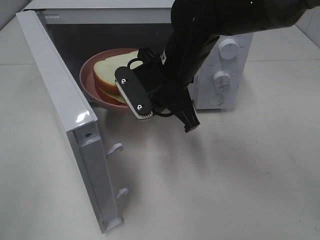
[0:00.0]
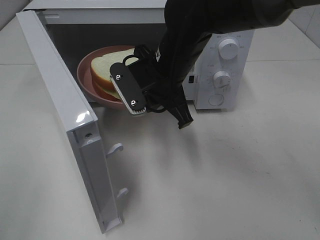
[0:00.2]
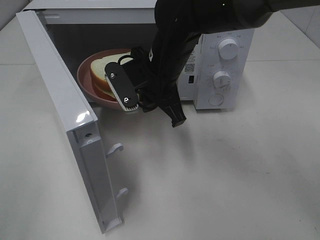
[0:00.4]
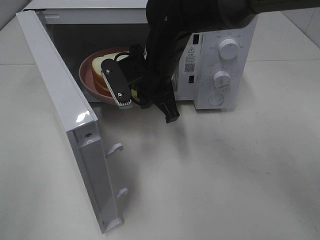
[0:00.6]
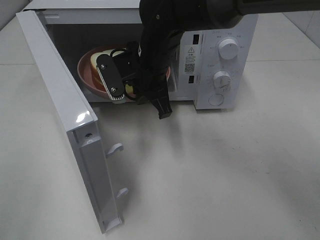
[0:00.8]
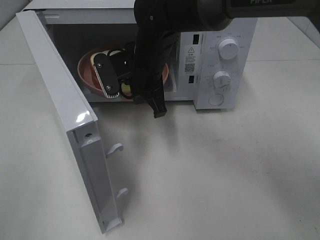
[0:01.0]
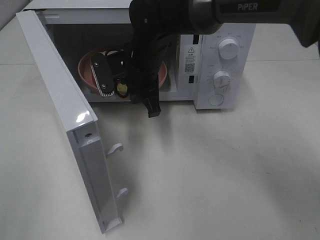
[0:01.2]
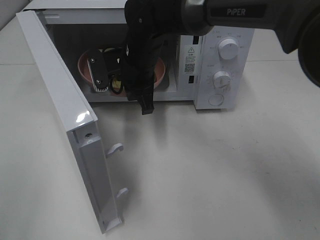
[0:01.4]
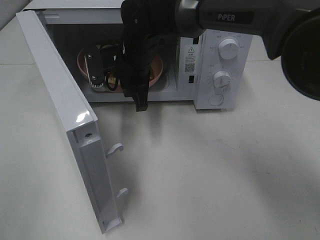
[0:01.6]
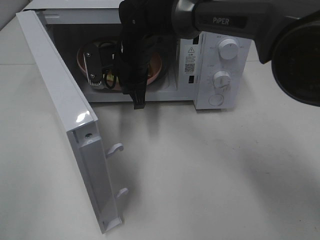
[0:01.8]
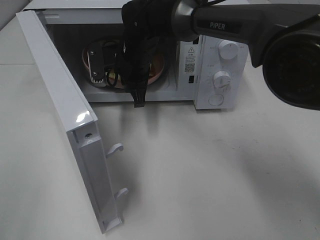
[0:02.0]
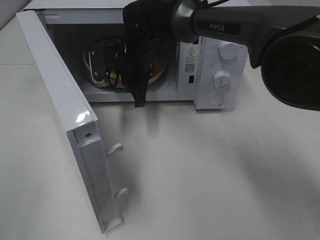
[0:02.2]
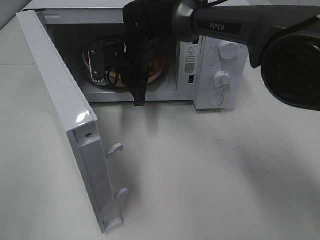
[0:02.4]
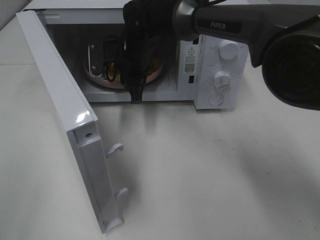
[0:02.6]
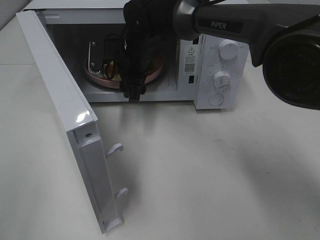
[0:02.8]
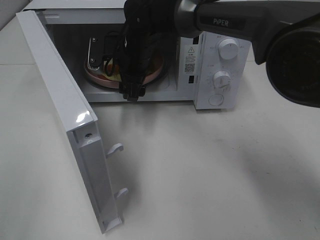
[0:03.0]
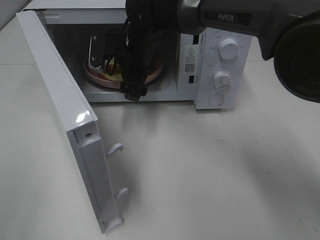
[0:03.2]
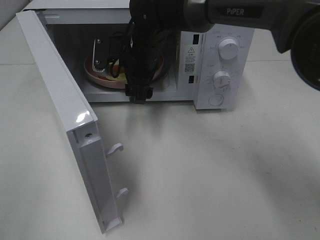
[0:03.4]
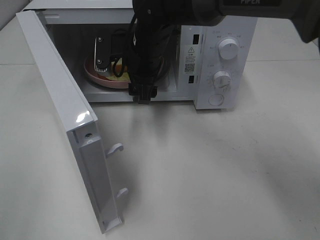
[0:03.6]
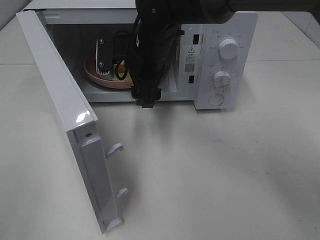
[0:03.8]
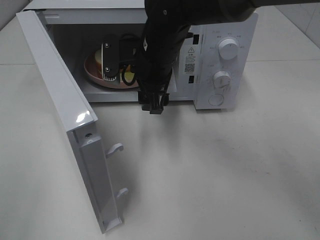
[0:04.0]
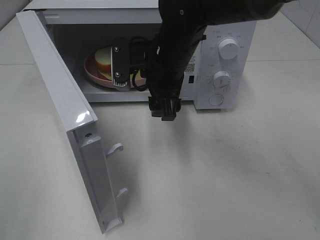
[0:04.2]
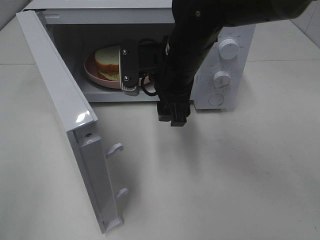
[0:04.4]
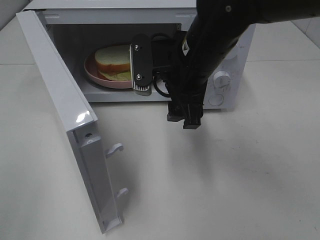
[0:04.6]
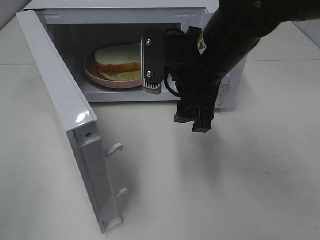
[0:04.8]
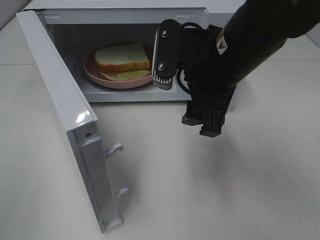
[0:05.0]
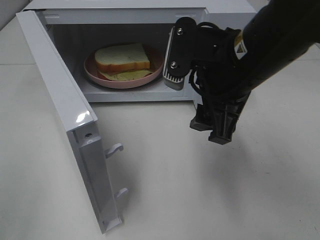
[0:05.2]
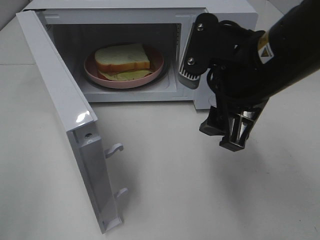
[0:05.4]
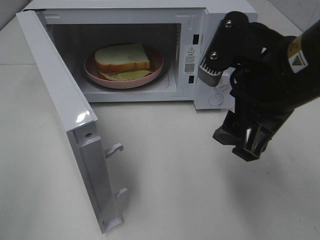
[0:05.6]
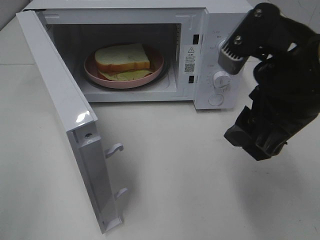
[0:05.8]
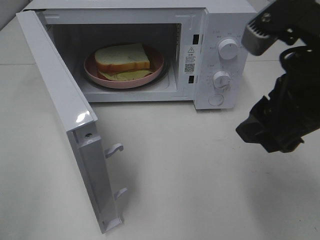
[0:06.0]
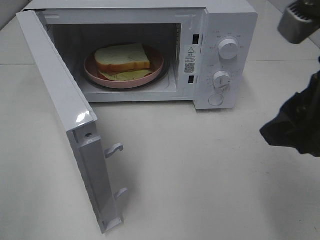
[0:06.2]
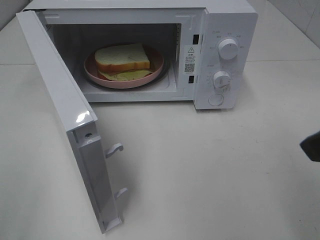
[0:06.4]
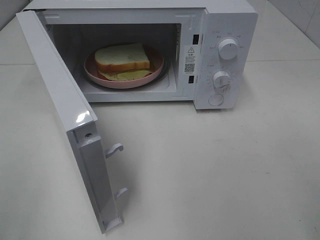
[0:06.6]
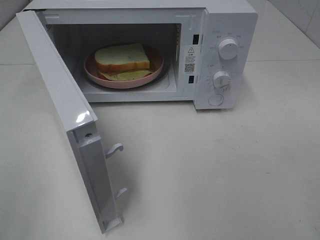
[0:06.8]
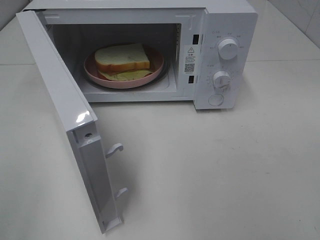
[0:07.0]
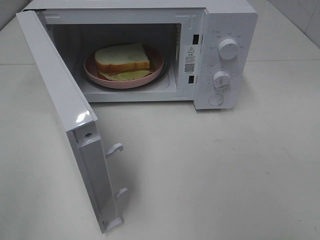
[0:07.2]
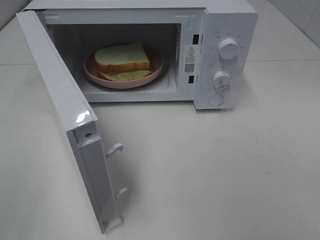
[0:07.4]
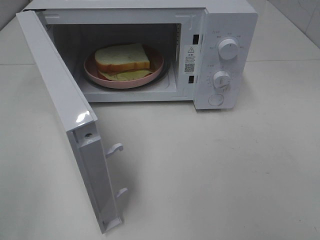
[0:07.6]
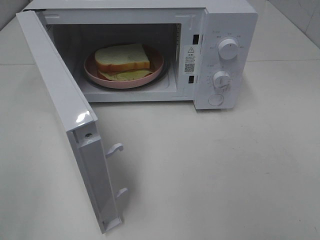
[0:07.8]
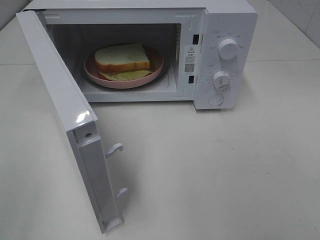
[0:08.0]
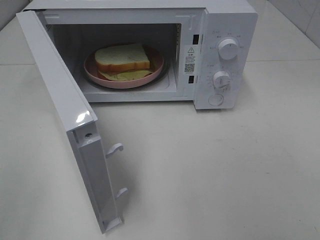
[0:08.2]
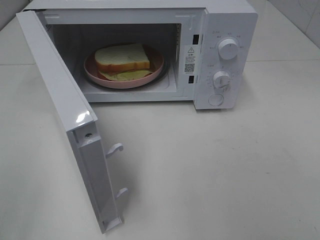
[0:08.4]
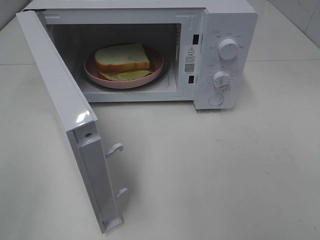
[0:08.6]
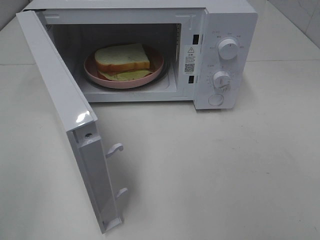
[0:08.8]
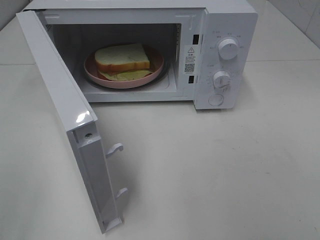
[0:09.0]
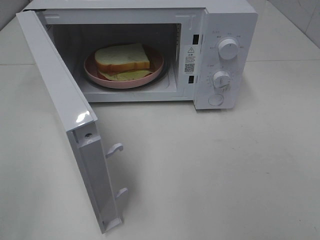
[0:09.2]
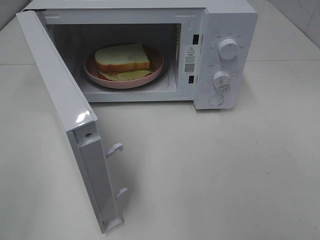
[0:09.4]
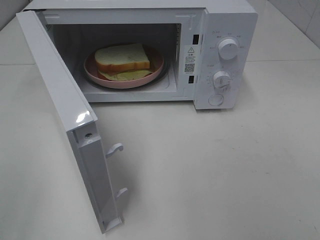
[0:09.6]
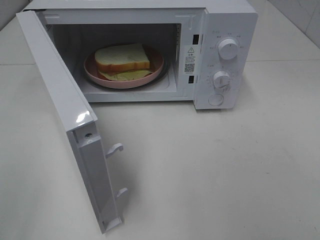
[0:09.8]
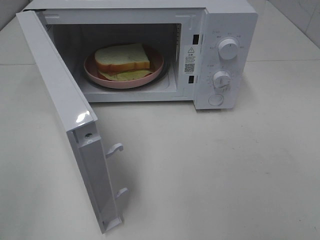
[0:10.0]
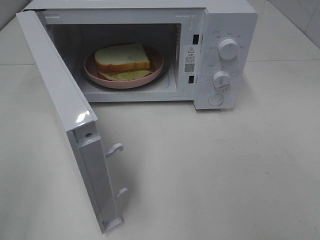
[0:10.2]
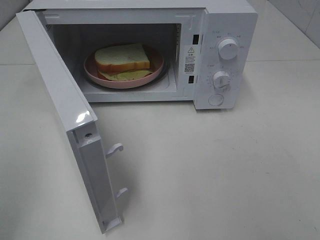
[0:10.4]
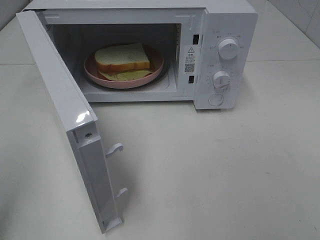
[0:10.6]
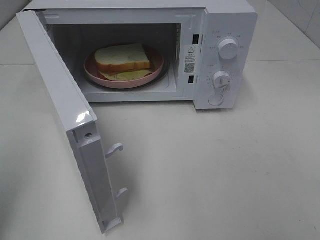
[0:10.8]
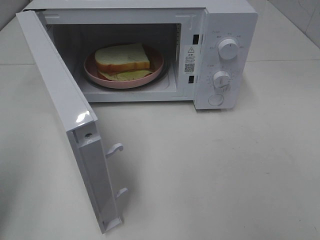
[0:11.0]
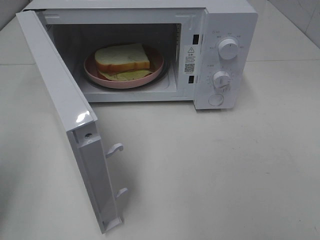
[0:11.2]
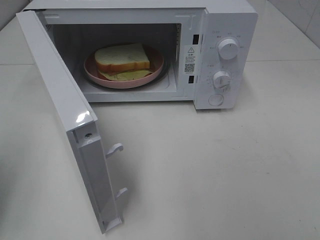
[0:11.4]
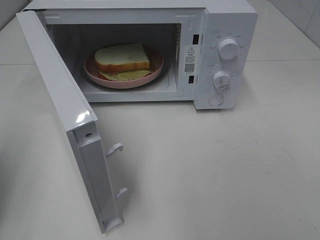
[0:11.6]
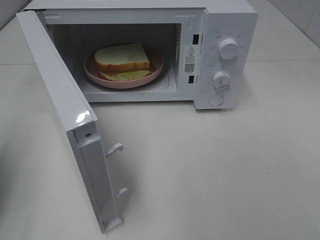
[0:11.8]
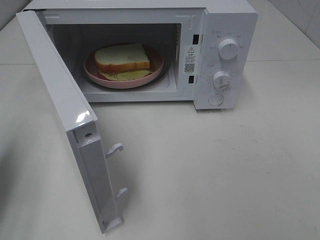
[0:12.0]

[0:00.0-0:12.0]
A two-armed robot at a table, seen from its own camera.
Task of the whole recording: Heat Sandwich.
Step, 0:00.0 to 0:03.8: Right hand: place the plate in the microwave.
0:00.0 to 0:01.6: The right gripper goes some 10 cm forward and to the left.
0:01.6 to 0:03.0: The right gripper opens.
0:03.0 to 0:04.4: The right gripper moves backward and to the right, roughly 15 cm.
0:04.4 to 0:06.0: The right gripper heads backward, to the right and upward, covering some 20 cm.
0:06.0 to 0:07.6: The right gripper shifts about 20 cm backward and to the right.
0:10.4 to 0:12.0: The left gripper moves forward and downward, some 15 cm, and closes its fingers.

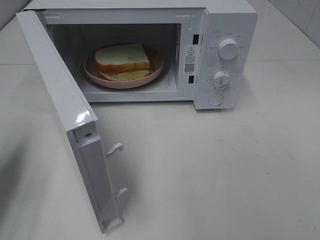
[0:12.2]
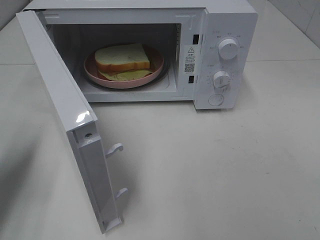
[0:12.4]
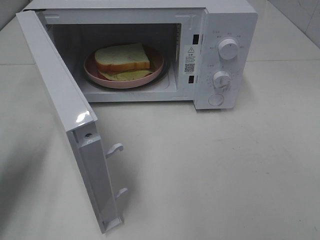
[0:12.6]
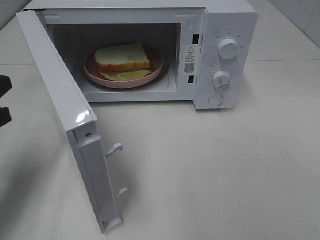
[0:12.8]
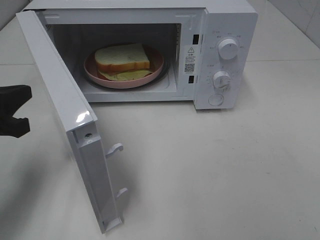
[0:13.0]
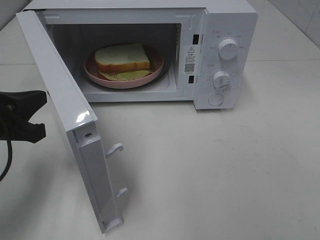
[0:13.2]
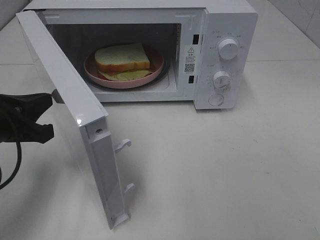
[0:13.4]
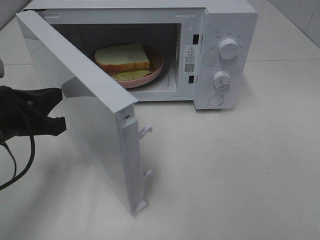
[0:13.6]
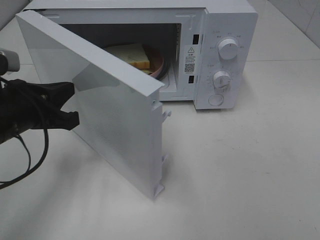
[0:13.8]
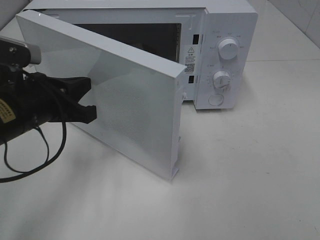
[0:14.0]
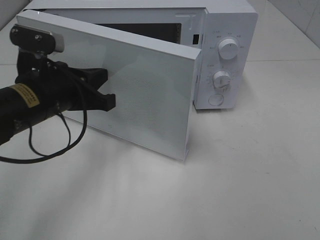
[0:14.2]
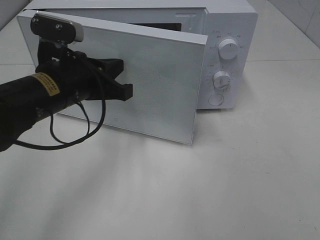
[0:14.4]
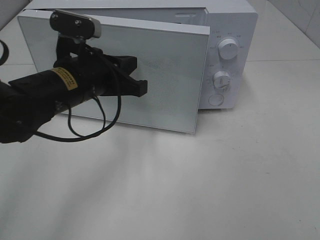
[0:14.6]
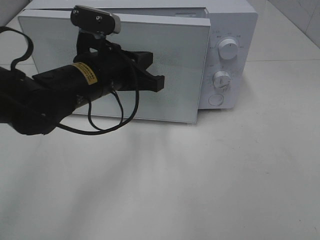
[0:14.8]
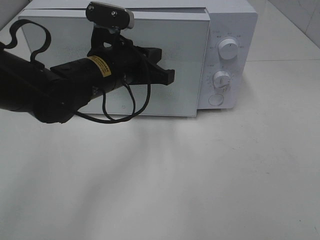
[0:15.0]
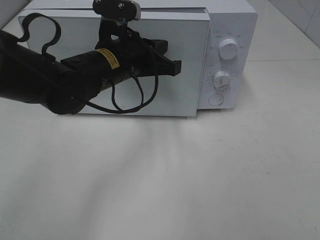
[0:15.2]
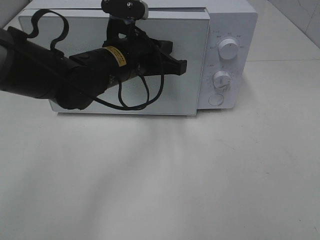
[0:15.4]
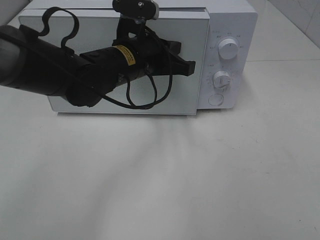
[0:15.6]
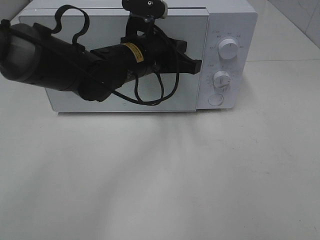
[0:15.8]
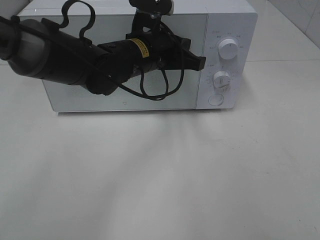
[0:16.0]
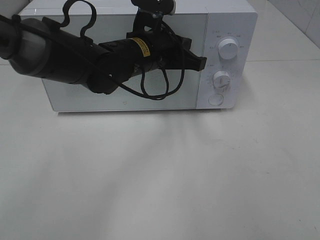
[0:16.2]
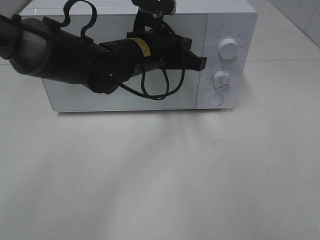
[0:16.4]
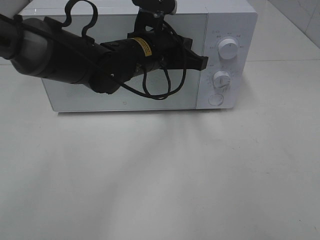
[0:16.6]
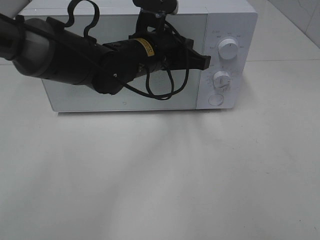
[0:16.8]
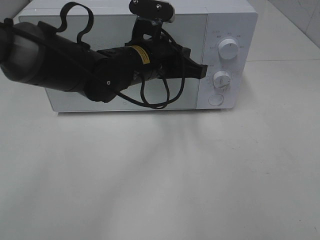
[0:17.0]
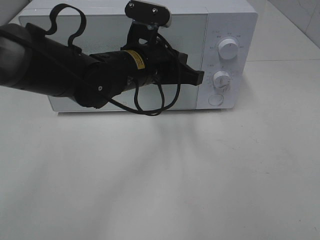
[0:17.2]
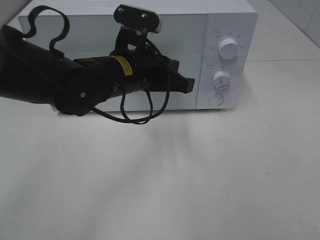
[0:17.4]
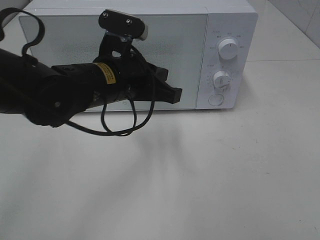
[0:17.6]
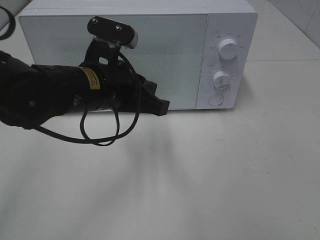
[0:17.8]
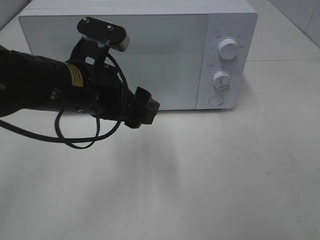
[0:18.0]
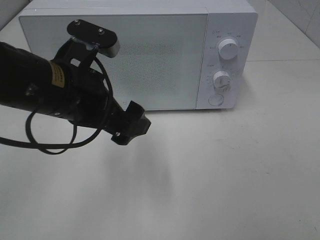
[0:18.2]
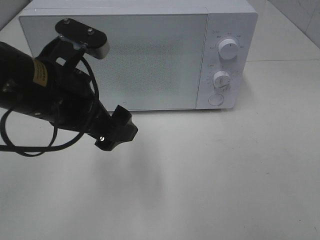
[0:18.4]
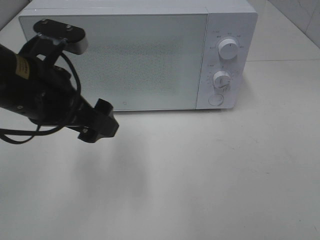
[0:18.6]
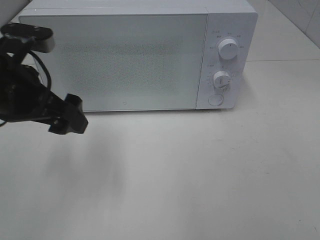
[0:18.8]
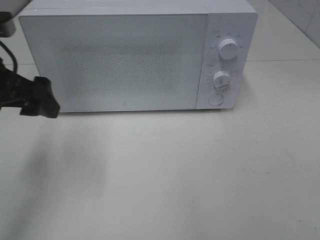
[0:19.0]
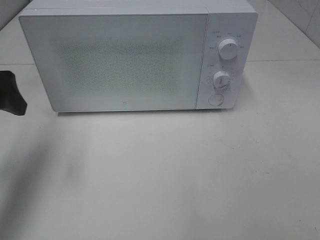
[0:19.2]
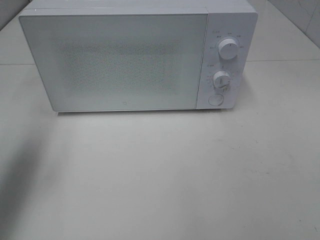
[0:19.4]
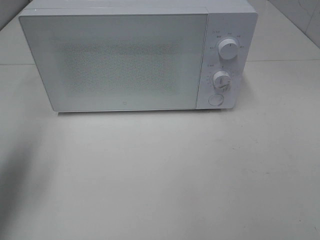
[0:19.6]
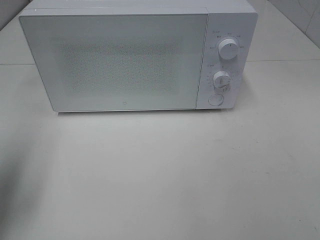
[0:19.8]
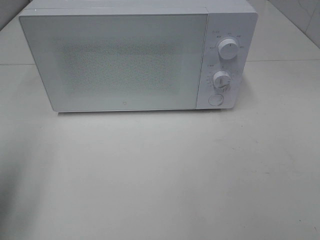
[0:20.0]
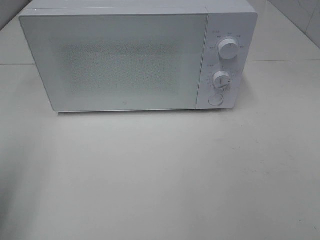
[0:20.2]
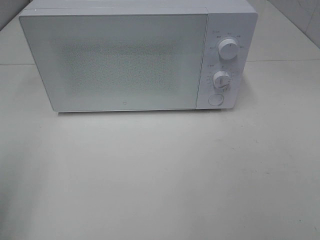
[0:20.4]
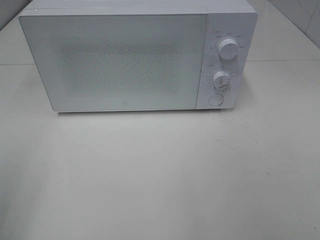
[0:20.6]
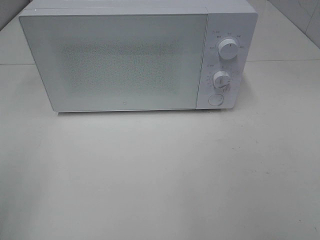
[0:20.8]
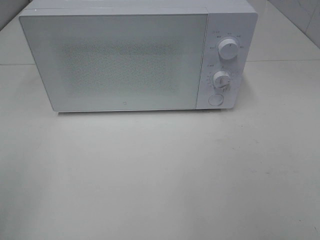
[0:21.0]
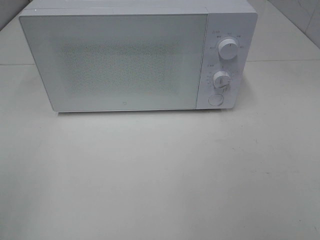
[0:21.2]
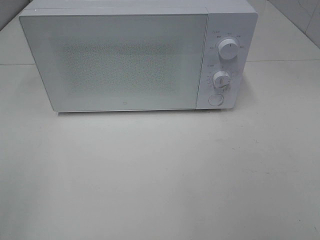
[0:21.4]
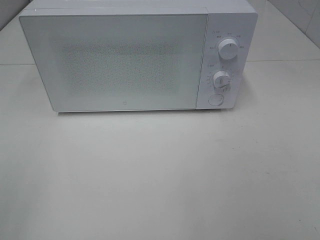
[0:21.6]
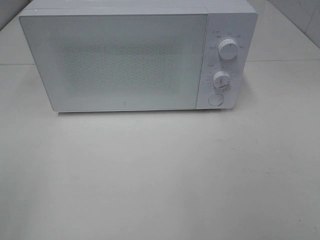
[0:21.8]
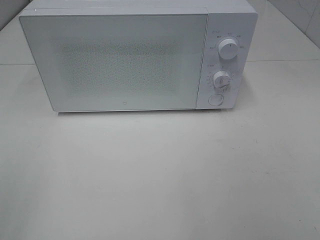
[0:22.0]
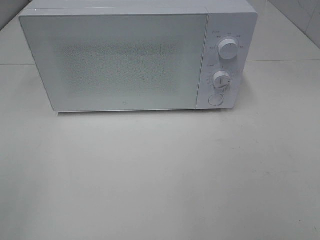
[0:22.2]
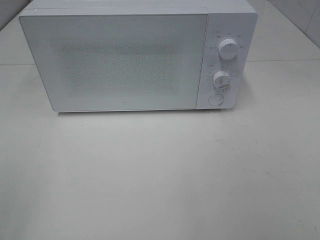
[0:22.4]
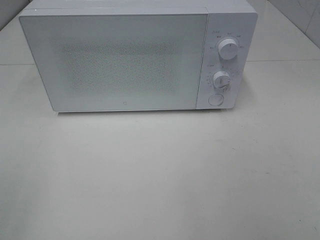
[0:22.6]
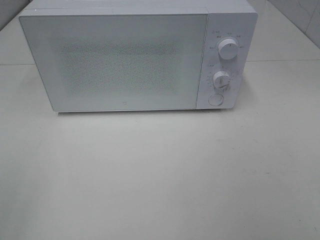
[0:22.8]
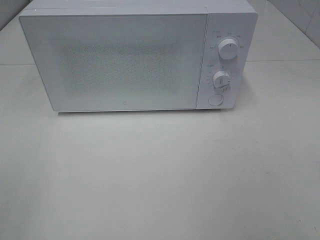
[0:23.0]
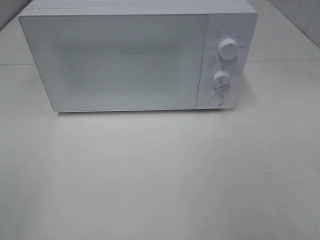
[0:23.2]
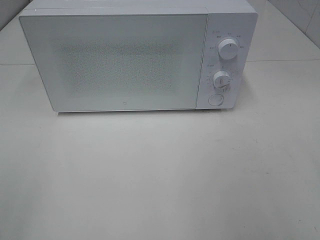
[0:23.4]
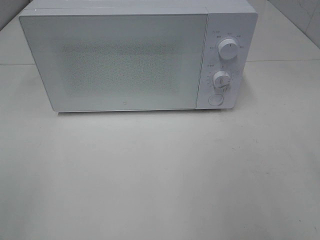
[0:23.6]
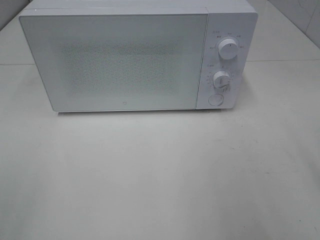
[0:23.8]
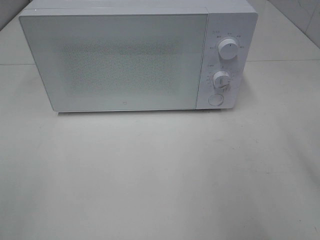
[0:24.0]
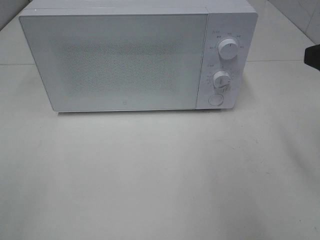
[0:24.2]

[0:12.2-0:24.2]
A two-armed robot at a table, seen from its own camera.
Task of the whole recording: Heat Sandwich.
Step, 0:12.2 to 0:17.2: Left hand: close the microwave door.
0:12.2 to 0:13.8: The left gripper shifts about 10 cm to the right.
0:13.8 to 0:15.2: The left gripper shifts about 15 cm to the right and forward.
0:15.2 to 0:16.6: The left gripper changes place by some 5 cm.
0:16.6 to 0:18.2: The left gripper shifts roughly 15 cm backward and to the left, and opens.
0:18.2 to 0:19.8: The left gripper moves to the left, some 20 cm.
0:19.8 to 0:21.2: The left gripper is displaced backward by some 15 cm.
0:21.2 to 0:22.6: The two grippers keep their place.
